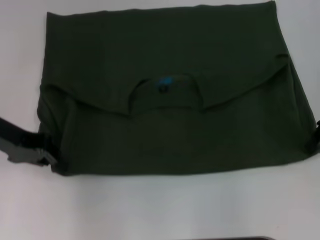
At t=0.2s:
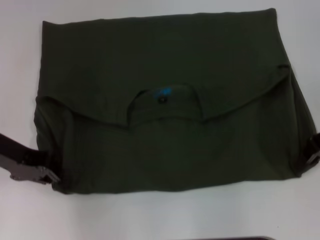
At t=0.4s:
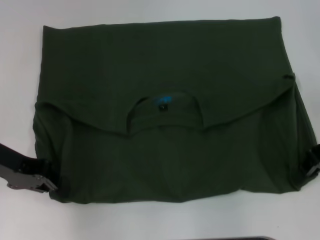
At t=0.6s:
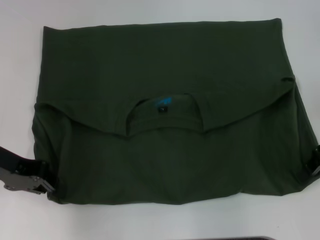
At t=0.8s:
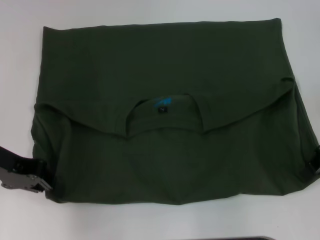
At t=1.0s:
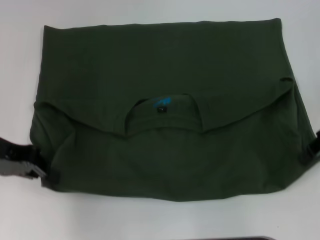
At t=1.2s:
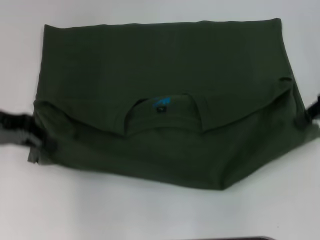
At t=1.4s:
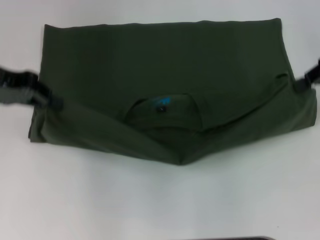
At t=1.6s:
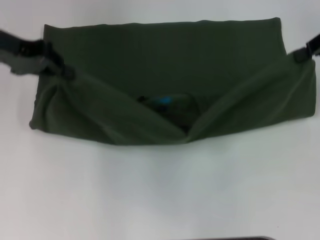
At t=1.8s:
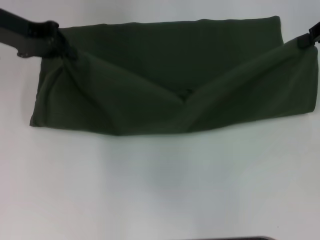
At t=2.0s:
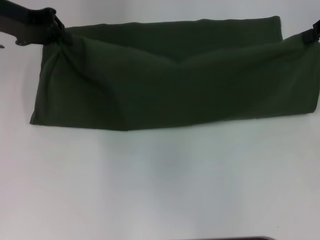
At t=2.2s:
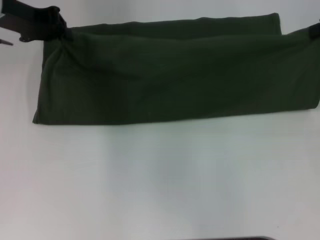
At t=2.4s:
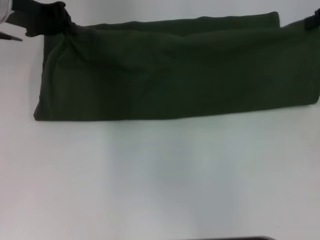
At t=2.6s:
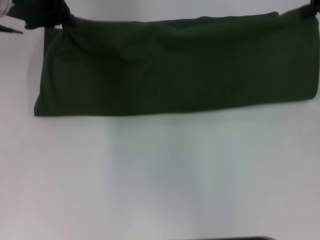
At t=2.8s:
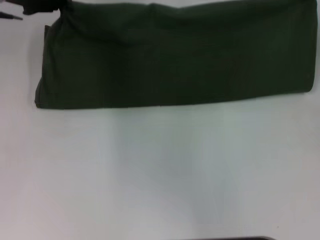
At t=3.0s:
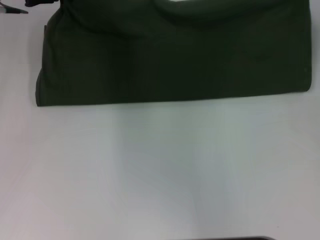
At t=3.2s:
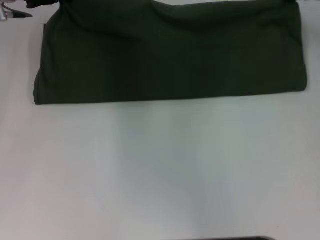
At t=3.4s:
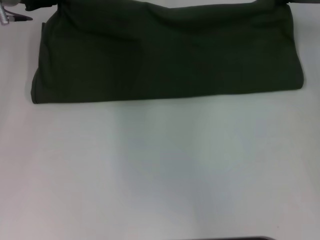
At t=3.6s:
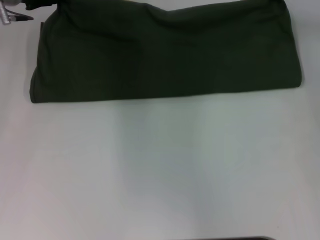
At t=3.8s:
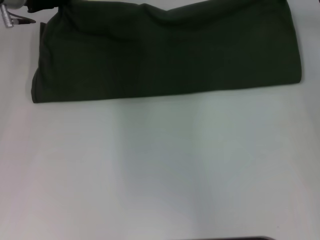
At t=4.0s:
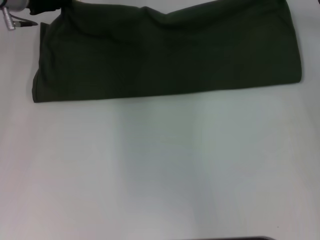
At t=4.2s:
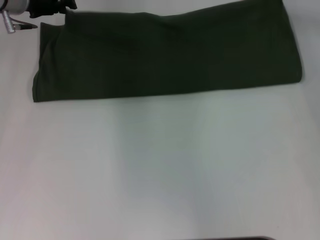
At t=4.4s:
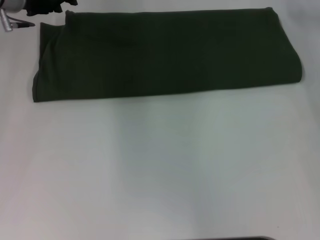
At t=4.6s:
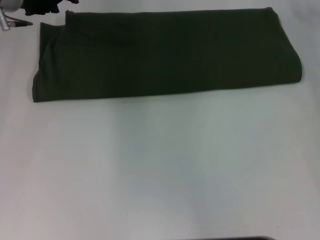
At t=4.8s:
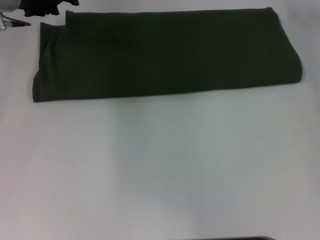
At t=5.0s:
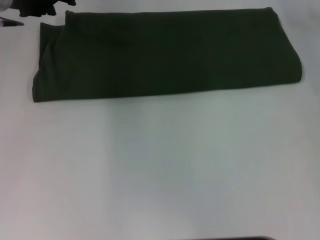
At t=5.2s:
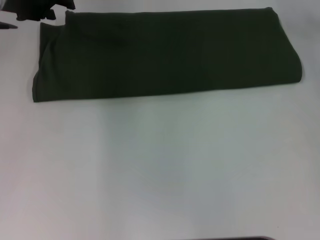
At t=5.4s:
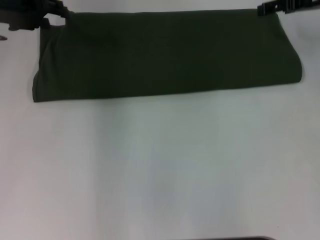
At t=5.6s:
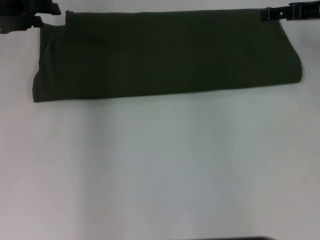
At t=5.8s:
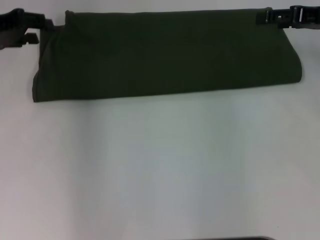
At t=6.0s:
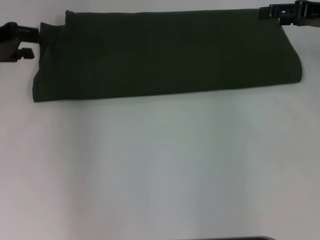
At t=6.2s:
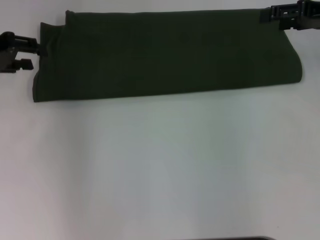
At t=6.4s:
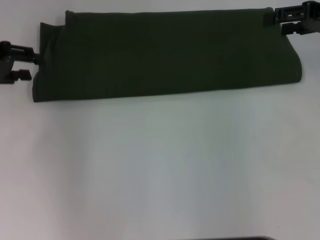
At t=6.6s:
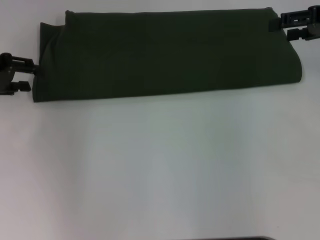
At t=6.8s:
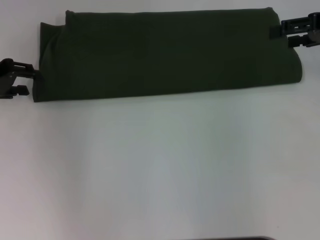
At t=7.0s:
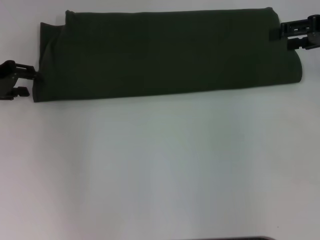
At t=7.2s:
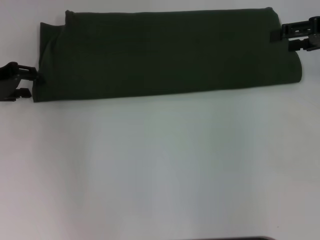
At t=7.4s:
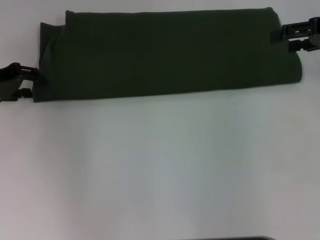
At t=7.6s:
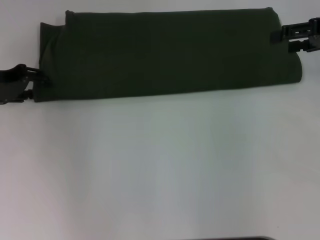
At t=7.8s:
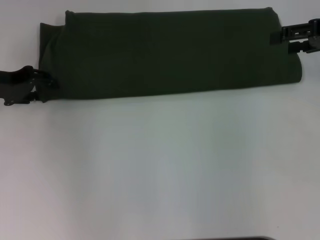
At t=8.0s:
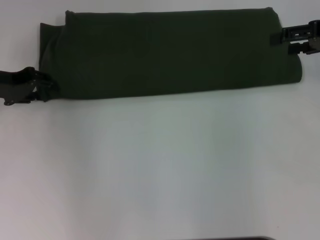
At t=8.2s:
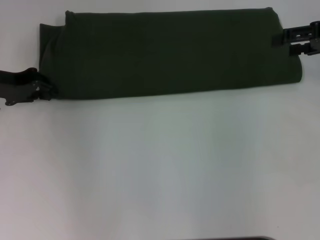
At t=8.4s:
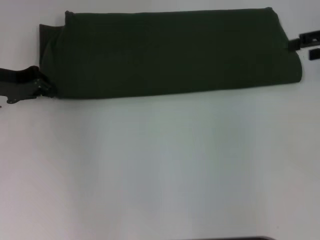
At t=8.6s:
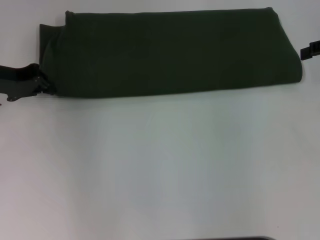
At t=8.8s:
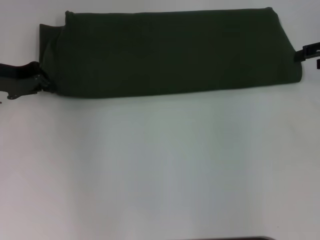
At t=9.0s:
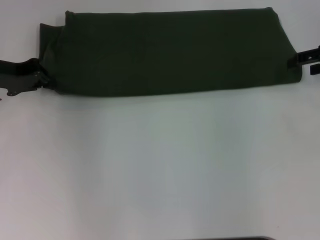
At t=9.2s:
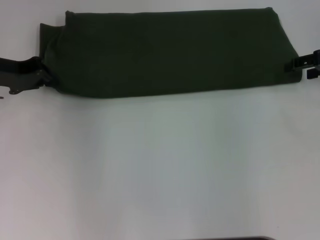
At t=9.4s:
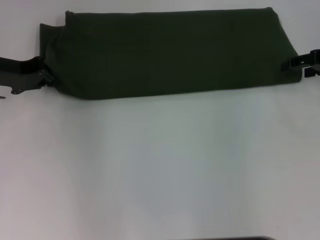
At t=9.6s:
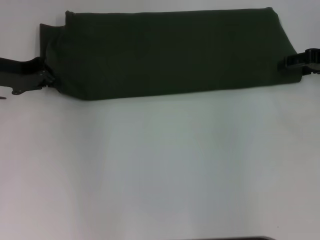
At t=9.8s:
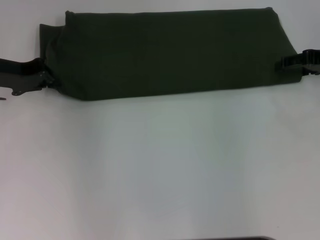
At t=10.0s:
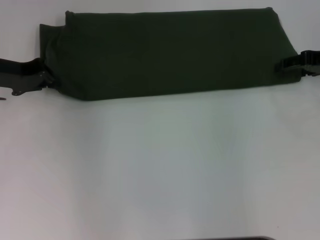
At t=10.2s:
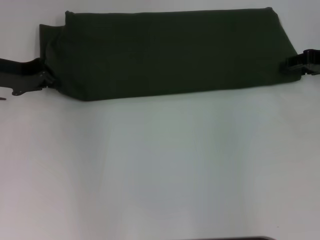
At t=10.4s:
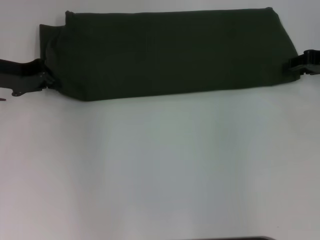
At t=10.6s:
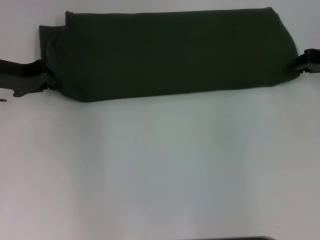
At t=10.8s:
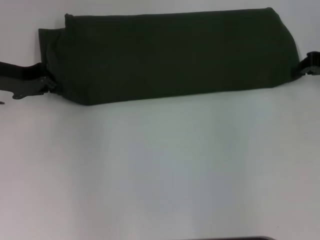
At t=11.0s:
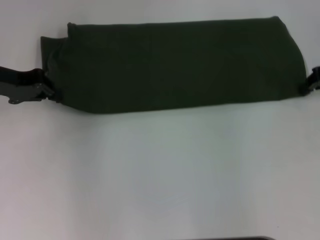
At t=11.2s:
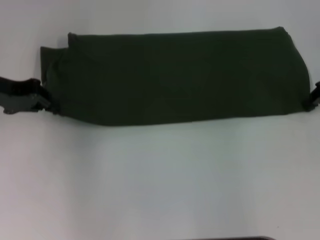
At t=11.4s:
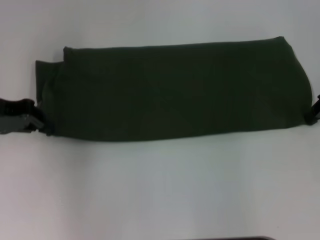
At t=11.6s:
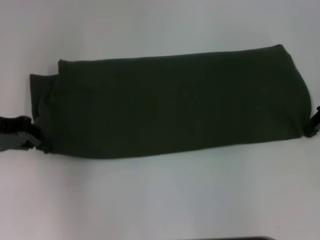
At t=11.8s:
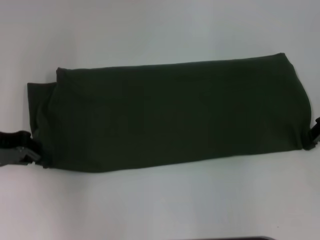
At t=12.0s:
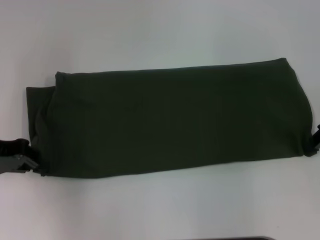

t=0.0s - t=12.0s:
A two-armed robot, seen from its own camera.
Step, t=0.8s - t=4.2s: Fold the clothes with your left hand.
Step, t=0.8s - t=4.2s: Fold the clothes with your right hand.
t=0.0s - t=1.6s: The left gripper shifts approximately 10 cm upward and forward. Meanwhile the right gripper heads upward, covering about 10 cm.
t=1.6s - t=3.0s: The grippers both shift forward by about 5 cm.
t=3.0s - t=4.4s: The right gripper changes place by some 5 cm.
t=4.4s - t=6.0s: The left gripper heads backward and to the left, covering some 10 cm. Meanwhile the right gripper goes approximately 10 cm backward, and opens.
t=6.0s - t=7.6s: The left gripper shifts about 5 cm downward.
t=7.6s - t=9.0s: The left gripper closes its fingers.
t=9.0s - t=10.4s: The right gripper closes.
t=10.4s - t=12.0s: Both grippers travel together backward, some 10 cm. The right gripper closes its fingers.

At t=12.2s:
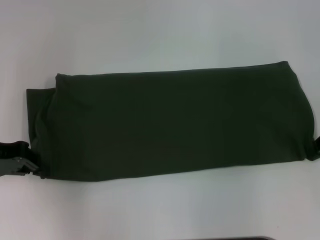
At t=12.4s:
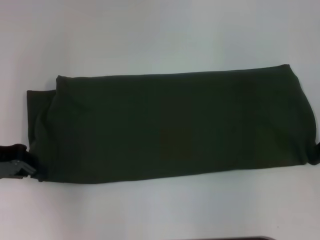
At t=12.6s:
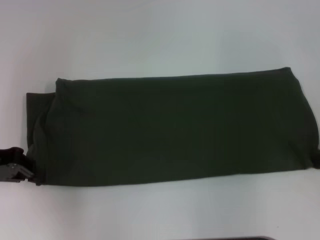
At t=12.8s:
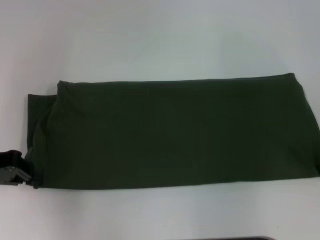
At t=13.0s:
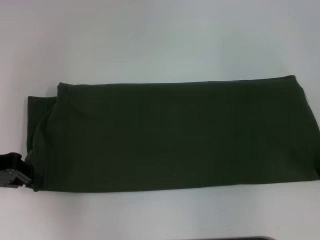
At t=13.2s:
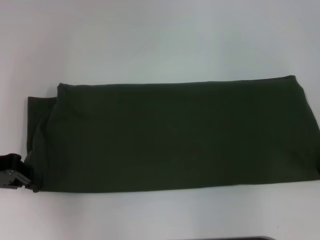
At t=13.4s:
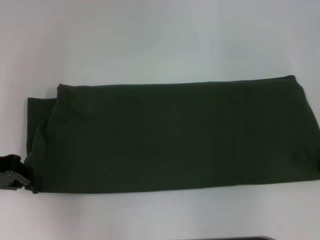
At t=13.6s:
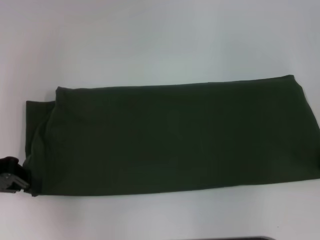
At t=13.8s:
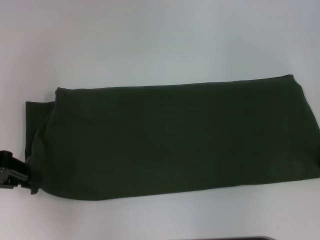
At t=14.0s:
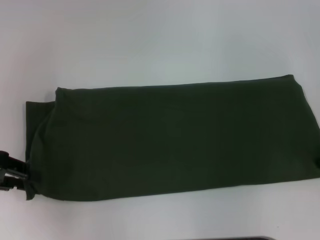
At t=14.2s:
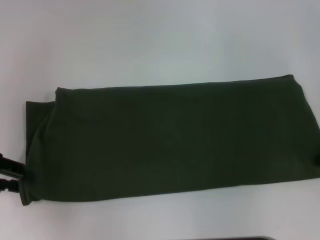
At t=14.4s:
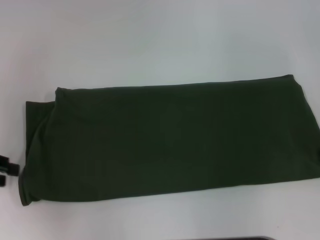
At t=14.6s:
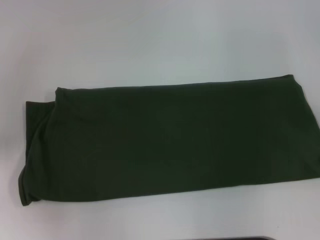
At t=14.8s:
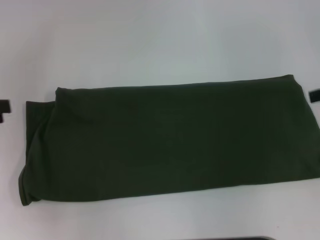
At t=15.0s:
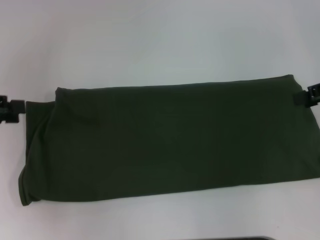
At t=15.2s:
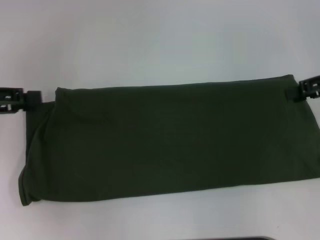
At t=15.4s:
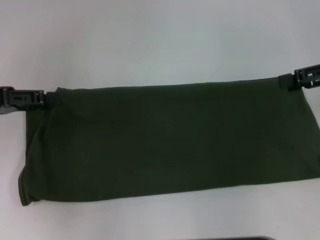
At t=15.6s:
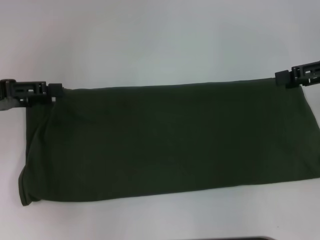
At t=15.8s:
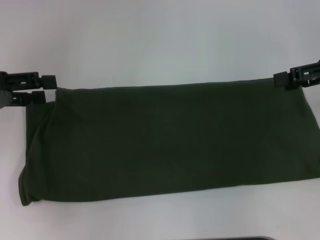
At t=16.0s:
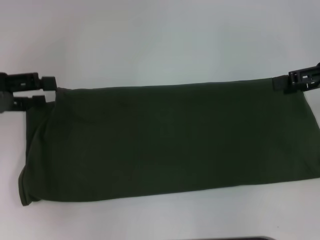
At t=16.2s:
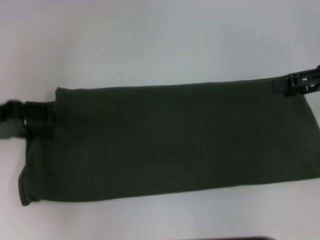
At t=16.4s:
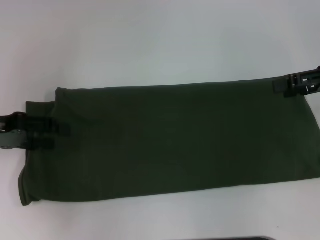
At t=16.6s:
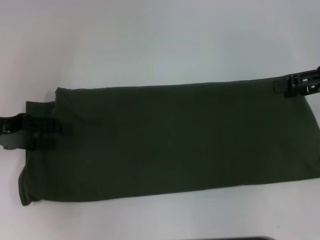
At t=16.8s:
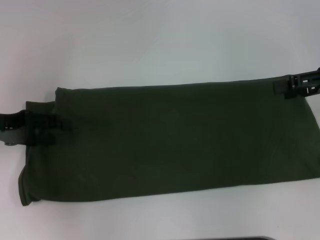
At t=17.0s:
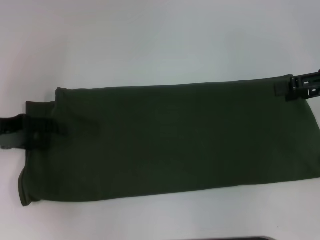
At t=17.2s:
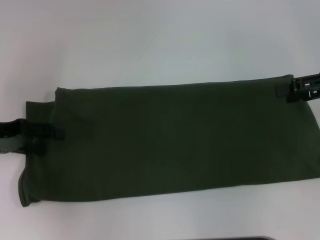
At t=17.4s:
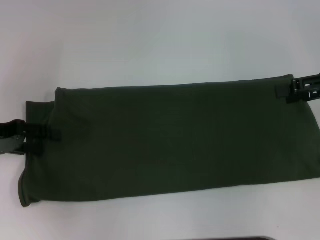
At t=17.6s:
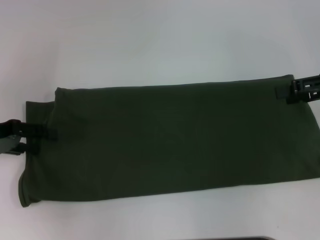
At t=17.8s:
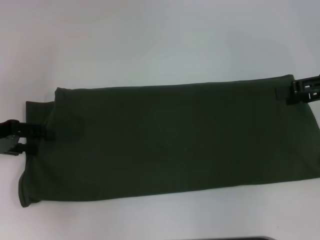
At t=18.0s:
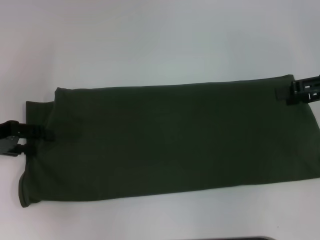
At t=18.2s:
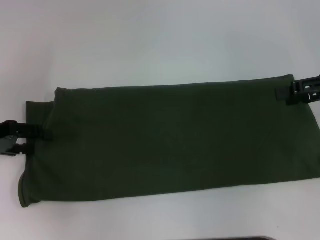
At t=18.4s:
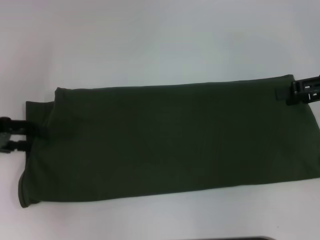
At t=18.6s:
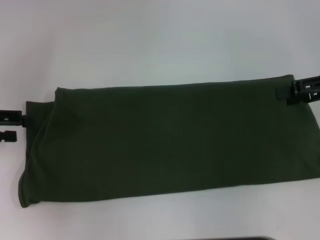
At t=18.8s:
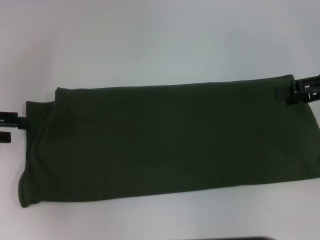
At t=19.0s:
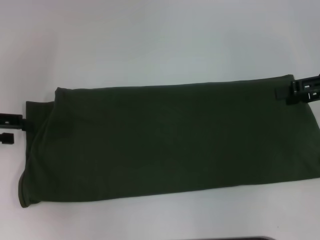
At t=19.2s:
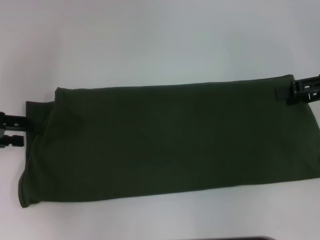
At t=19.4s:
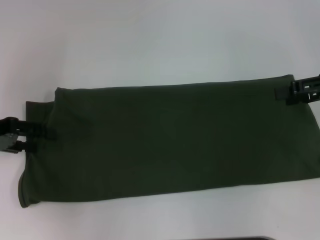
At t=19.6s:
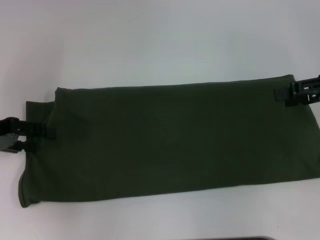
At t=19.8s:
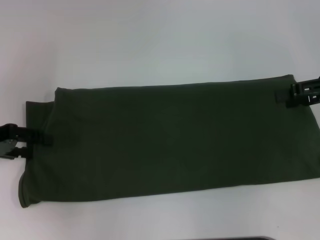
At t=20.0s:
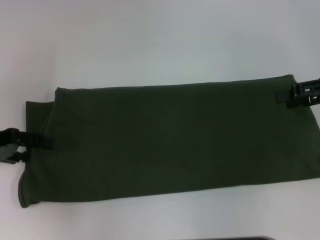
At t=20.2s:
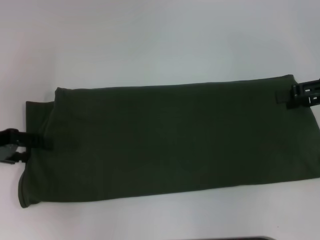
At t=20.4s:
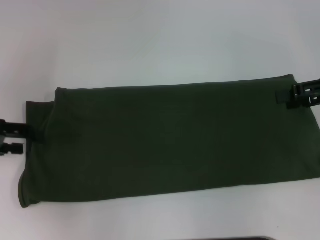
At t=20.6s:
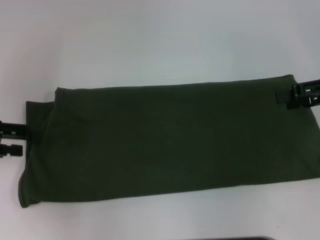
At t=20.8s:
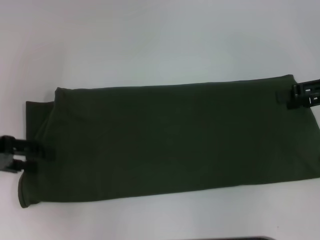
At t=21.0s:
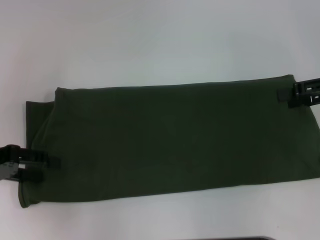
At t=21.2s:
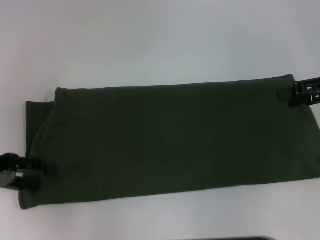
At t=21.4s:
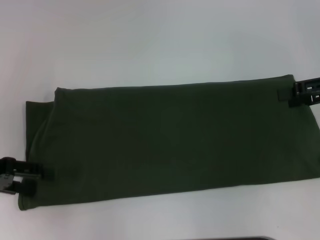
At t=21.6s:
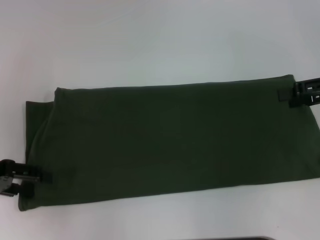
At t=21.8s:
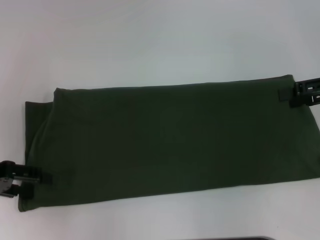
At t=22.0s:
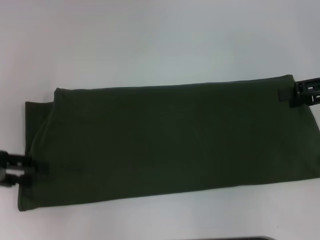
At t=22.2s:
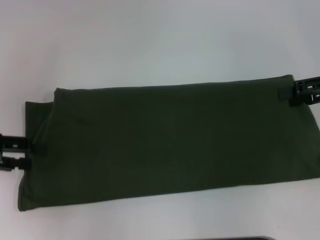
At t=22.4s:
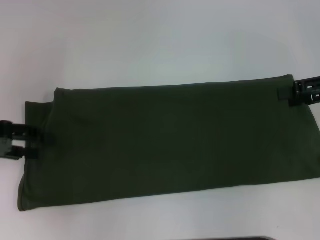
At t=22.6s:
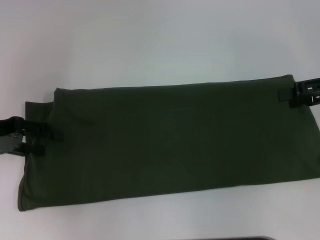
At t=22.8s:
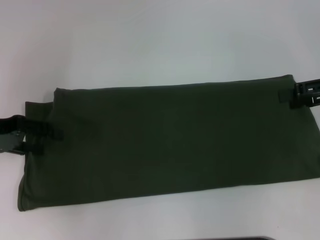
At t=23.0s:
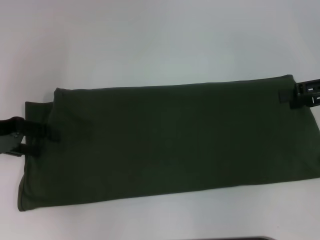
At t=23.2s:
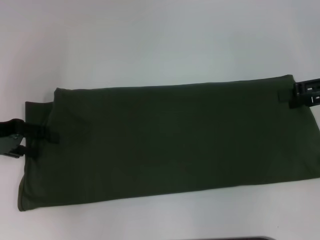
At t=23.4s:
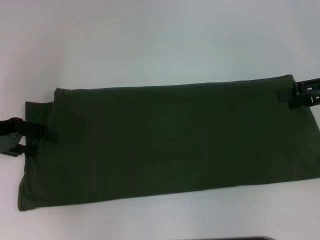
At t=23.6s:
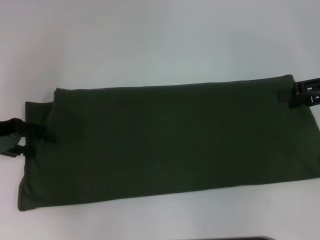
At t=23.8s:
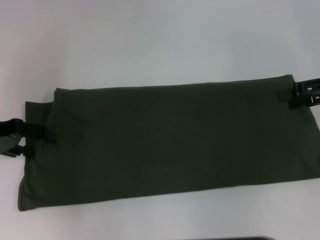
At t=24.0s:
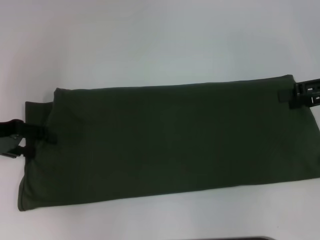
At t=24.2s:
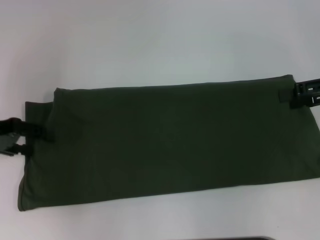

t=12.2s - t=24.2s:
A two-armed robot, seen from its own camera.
Step, t=12.2s - t=14.2s: Pull the clothes with your left hand.
Step, t=12.2s - t=14.2s: Pull the clothes with your right hand.
t=12.2s - t=13.8s: There are only small adjustments of the grippers.
t=13.8s - t=15.2s: The left gripper opens its fingers.
t=15.2s - t=16.6s: The left gripper moves some 5 cm, and opens up.
t=16.6s - t=18.2s: The grippers make only small movements.
t=19.8s - t=22.6s: The grippers stay close to where they were, moving slightly.
